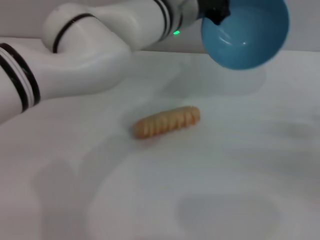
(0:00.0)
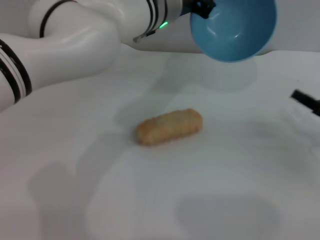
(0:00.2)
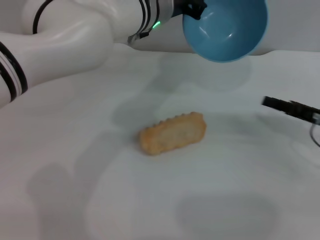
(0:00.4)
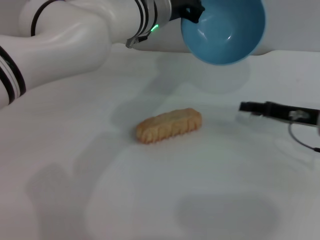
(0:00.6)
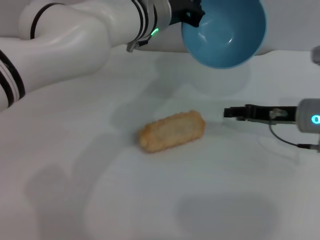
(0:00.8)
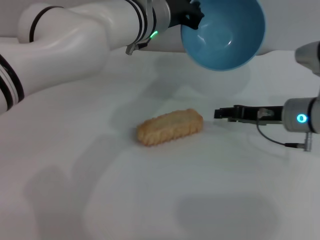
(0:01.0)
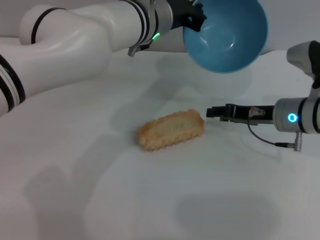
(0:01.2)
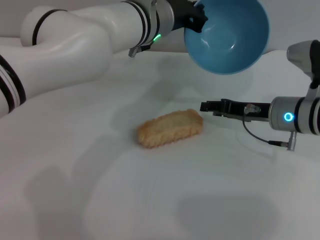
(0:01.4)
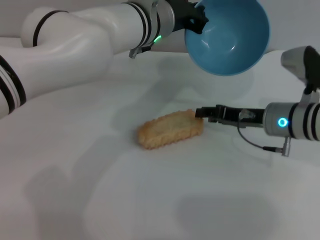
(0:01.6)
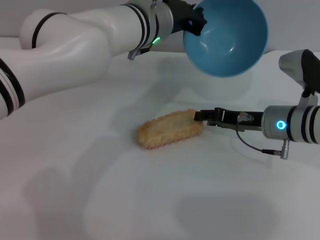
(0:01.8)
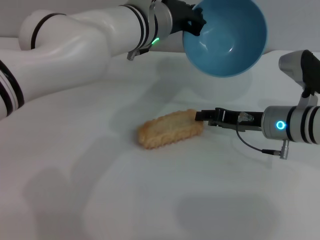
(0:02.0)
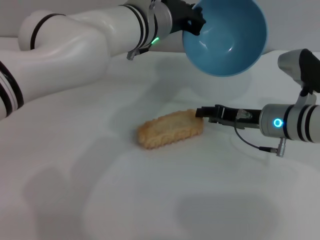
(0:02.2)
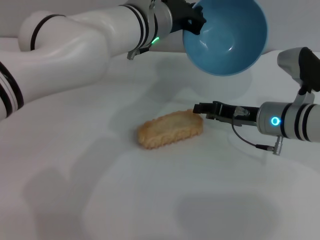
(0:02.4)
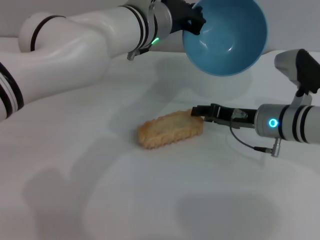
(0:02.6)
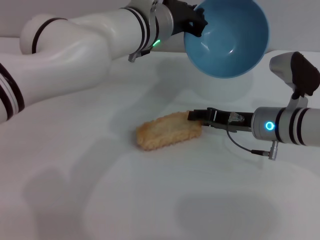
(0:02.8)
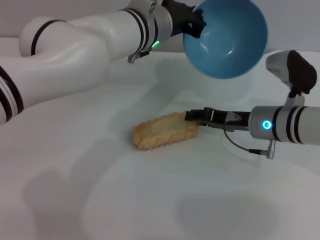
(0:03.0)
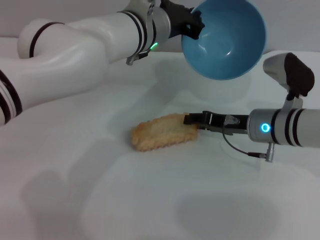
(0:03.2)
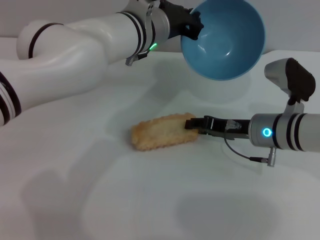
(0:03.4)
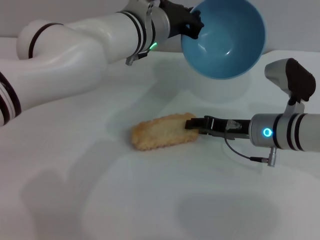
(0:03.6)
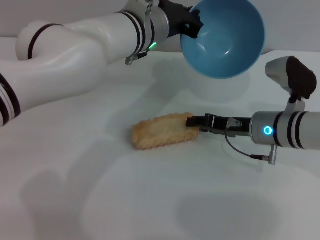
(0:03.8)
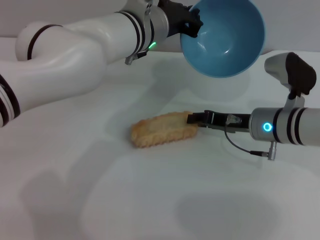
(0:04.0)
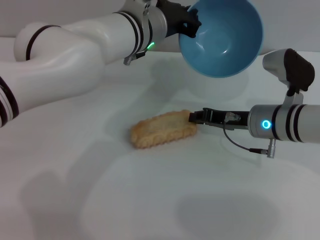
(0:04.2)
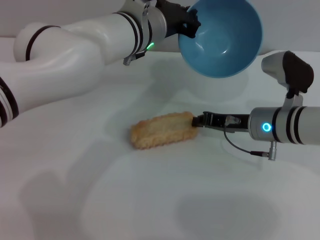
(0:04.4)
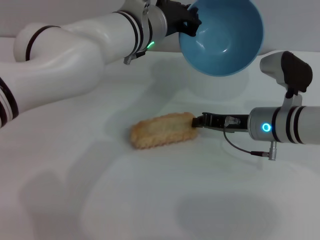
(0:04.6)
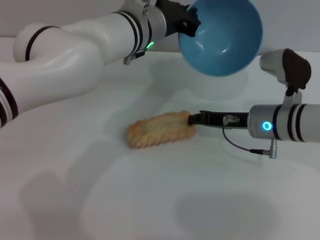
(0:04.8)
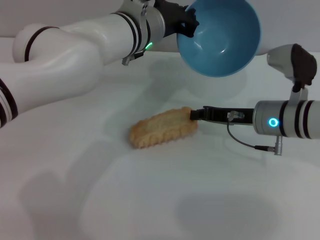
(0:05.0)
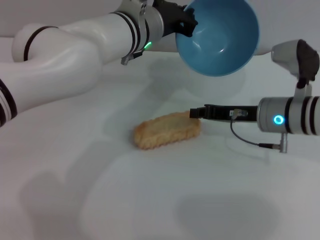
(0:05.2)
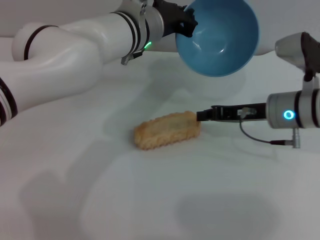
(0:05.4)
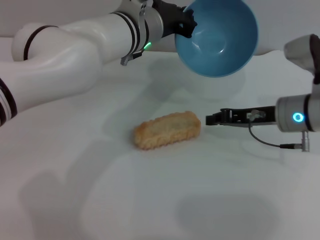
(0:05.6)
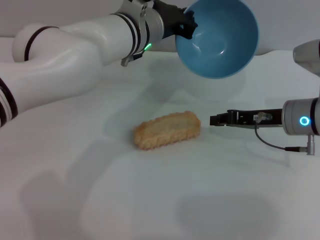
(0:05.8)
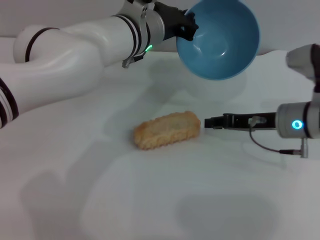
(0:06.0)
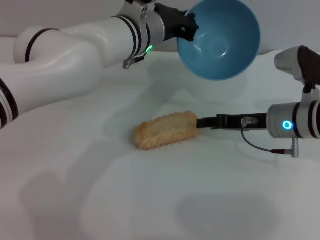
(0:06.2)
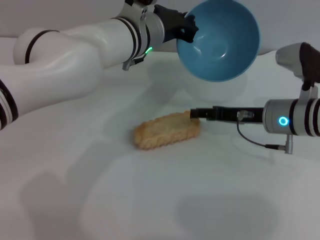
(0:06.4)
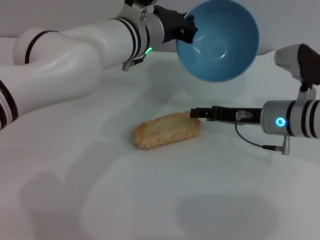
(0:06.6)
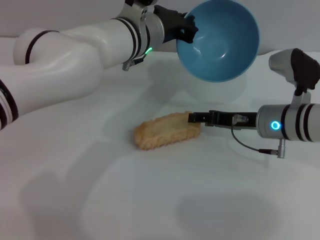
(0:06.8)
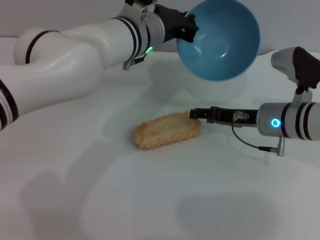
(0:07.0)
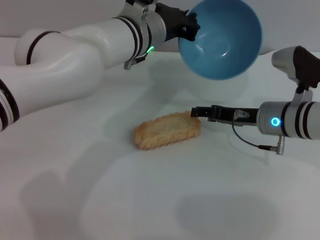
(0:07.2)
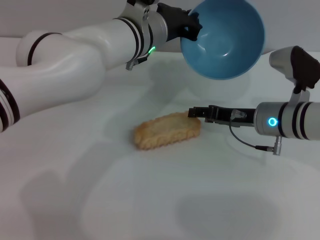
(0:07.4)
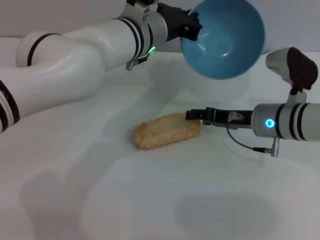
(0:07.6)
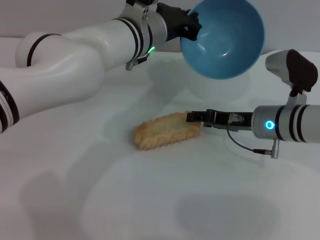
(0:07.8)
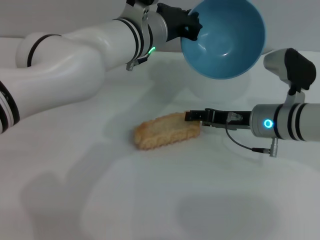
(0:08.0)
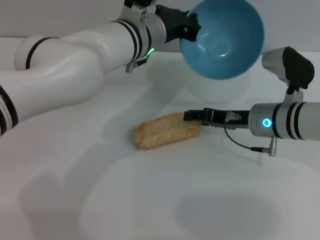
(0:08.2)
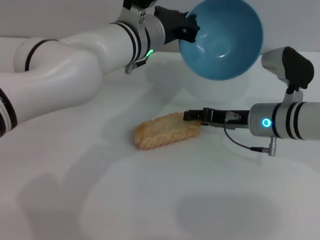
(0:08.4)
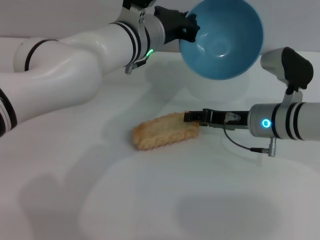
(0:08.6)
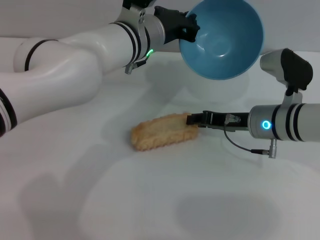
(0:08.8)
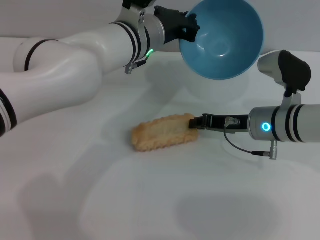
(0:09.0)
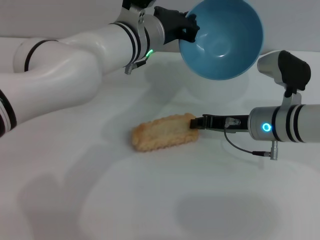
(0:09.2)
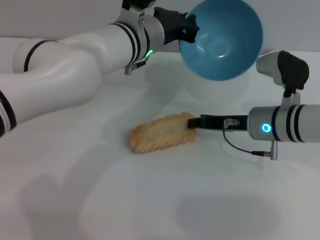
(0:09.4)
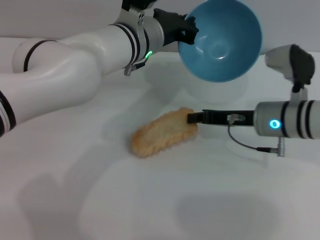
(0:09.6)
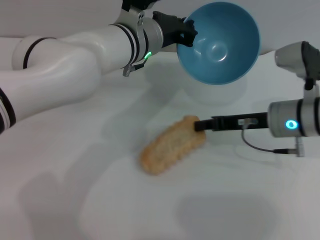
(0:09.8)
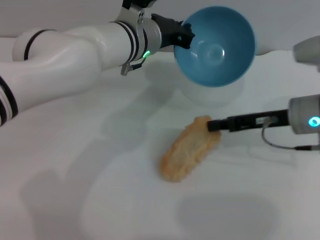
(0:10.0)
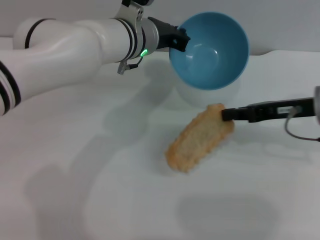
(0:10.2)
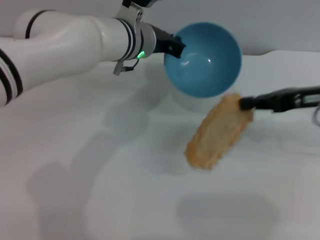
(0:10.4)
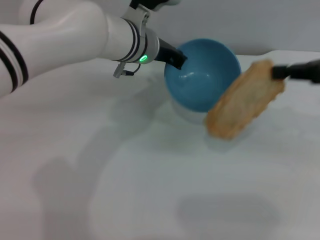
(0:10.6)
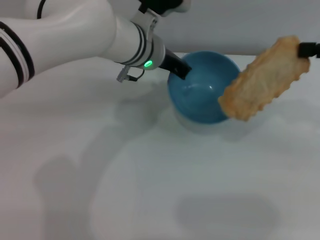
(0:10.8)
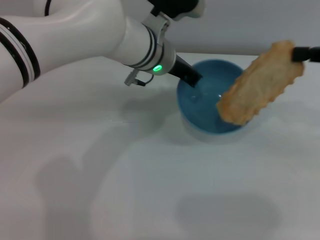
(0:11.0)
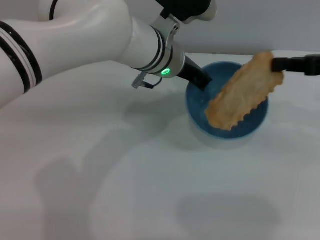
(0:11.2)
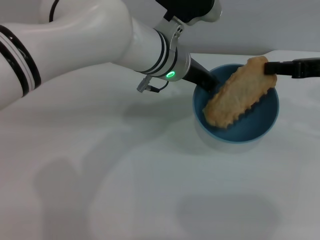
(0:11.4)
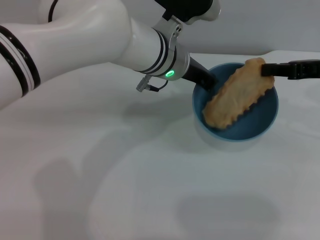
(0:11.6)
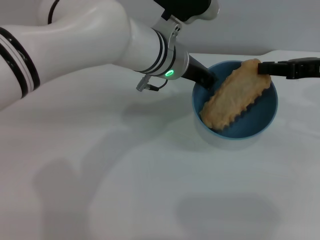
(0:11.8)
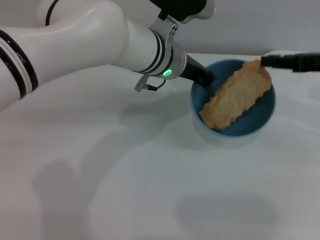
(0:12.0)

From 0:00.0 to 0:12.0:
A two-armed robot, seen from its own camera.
Task of the whole recording: put the bread into the blue bowl and pour it out repeatedly.
Step, from 0:00.0 to 0:10.4: Pick up the bread with the right gripper.
Step, from 0:10.6 to 0:12.0: Place the bread into the bowl.
From 0:00.0 to 0:01.6: The right gripper moves to the left and forward, some 20 cm.
From 0:01.6 to 0:03.0: The grippers move only a little.
From 0:03.0 to 0:04.4: The right gripper closes up.
From 0:04.4 to 0:06.0: The grippers make only small movements.
From 0:06.0 to 0:07.6: The right gripper opens up.
From 0:07.6 to 0:09.0: The right gripper closes up.
From 0:09.0 to 0:10.4: The right gripper is displaced upward and to the right by about 15 cm, and closes up.
From 0:10.4 to 0:12.0: The left gripper shifts by approximately 5 cm.

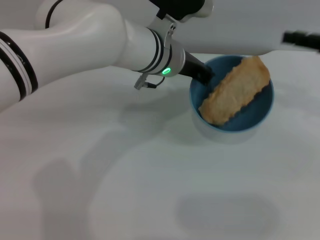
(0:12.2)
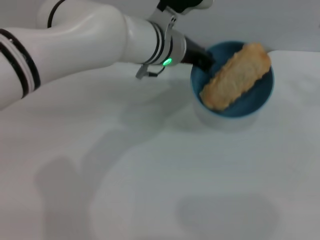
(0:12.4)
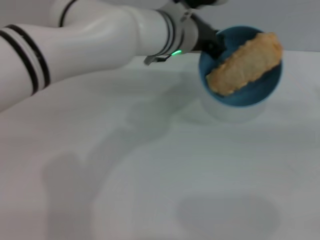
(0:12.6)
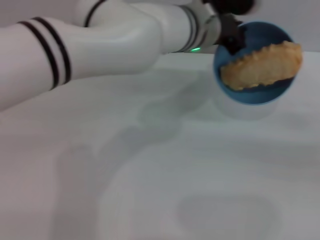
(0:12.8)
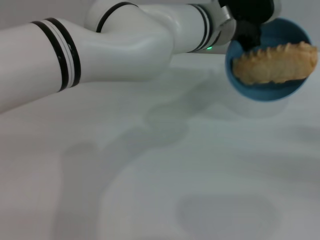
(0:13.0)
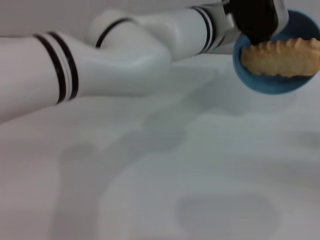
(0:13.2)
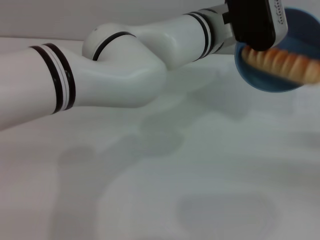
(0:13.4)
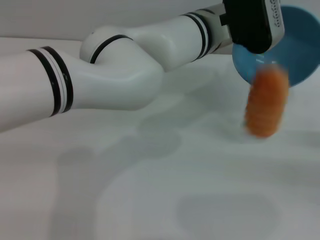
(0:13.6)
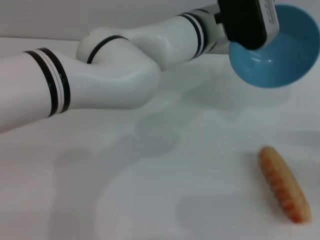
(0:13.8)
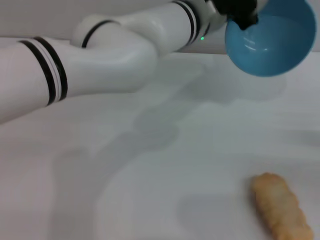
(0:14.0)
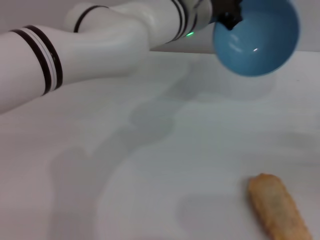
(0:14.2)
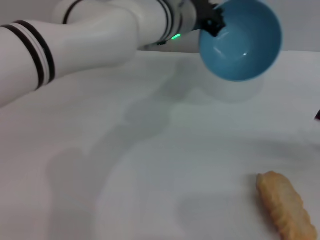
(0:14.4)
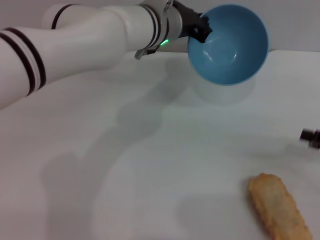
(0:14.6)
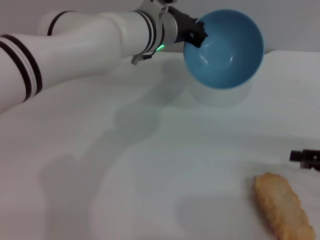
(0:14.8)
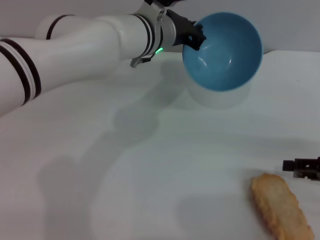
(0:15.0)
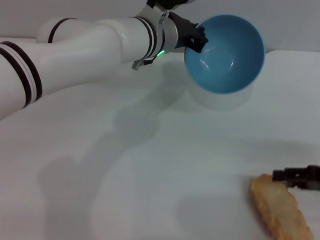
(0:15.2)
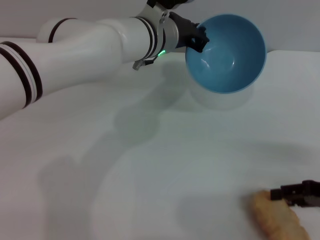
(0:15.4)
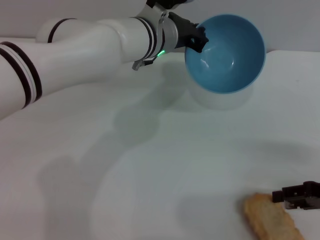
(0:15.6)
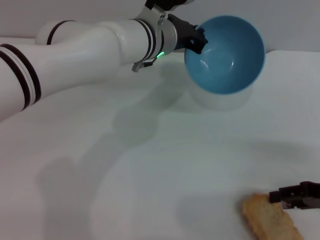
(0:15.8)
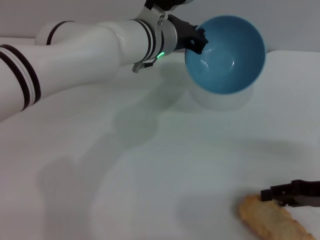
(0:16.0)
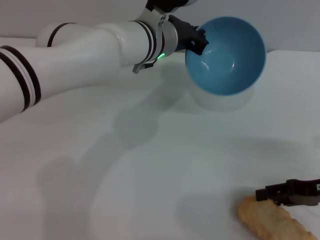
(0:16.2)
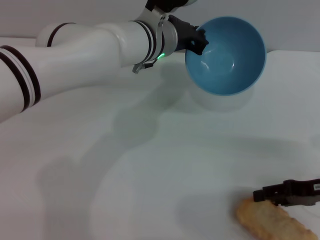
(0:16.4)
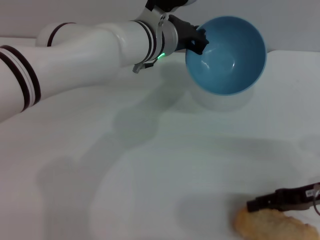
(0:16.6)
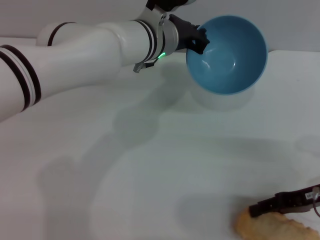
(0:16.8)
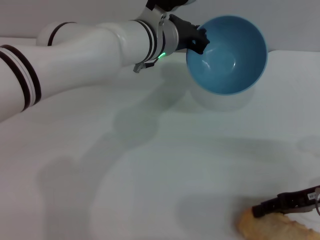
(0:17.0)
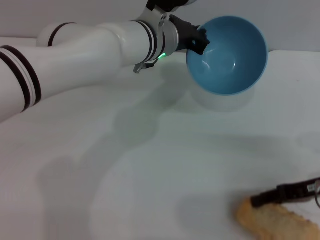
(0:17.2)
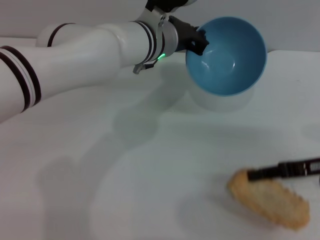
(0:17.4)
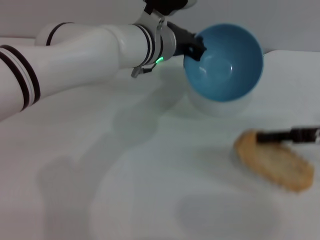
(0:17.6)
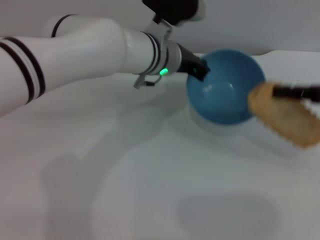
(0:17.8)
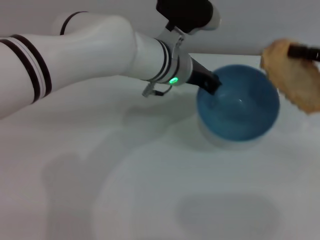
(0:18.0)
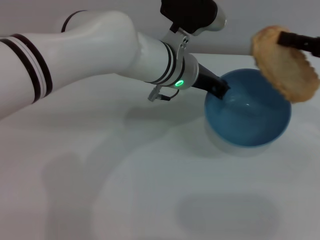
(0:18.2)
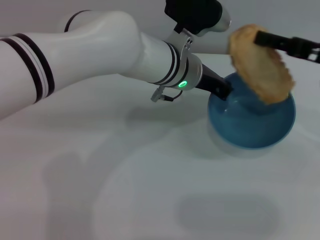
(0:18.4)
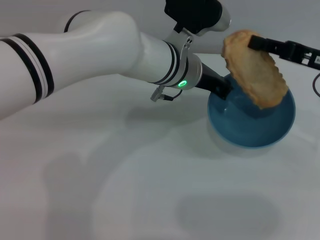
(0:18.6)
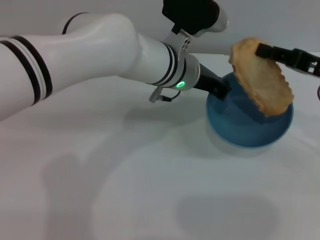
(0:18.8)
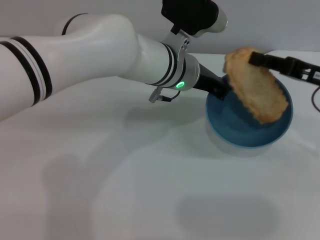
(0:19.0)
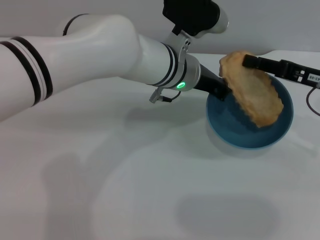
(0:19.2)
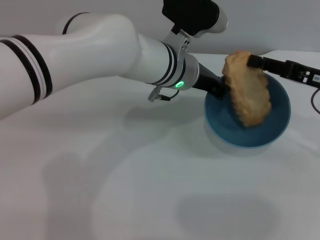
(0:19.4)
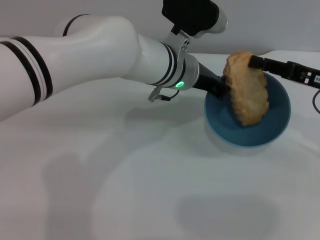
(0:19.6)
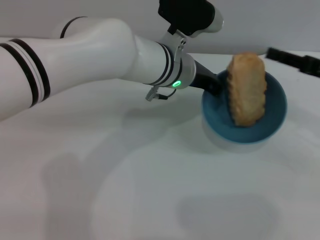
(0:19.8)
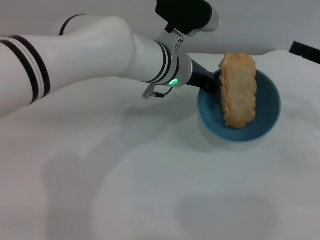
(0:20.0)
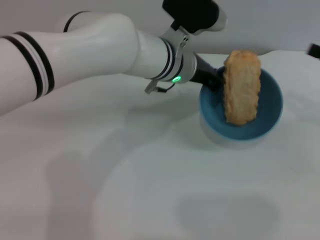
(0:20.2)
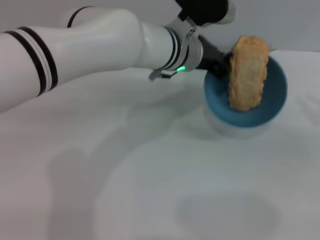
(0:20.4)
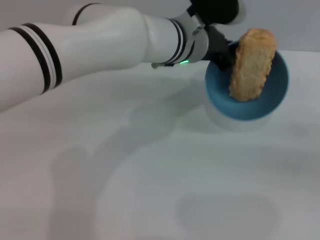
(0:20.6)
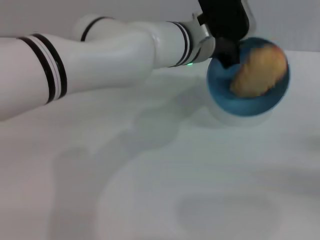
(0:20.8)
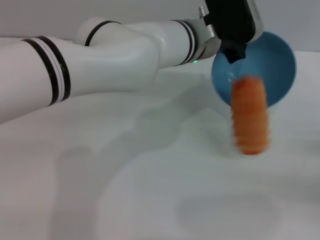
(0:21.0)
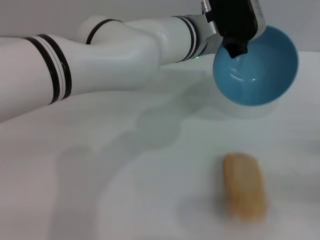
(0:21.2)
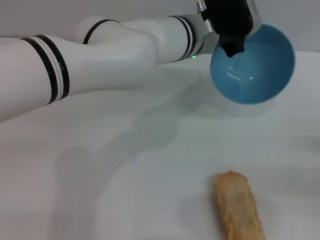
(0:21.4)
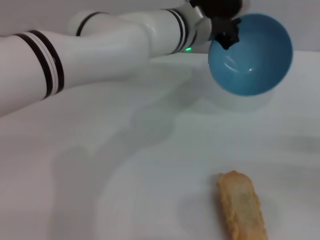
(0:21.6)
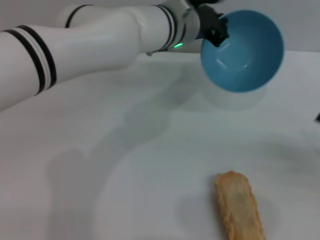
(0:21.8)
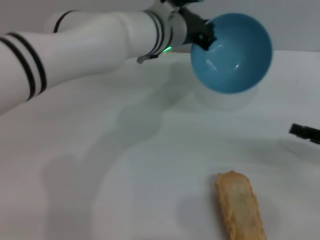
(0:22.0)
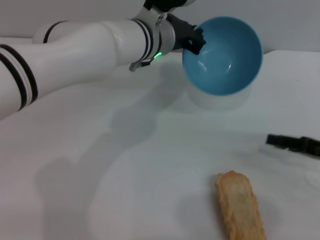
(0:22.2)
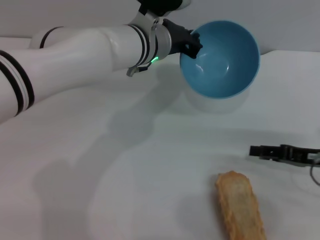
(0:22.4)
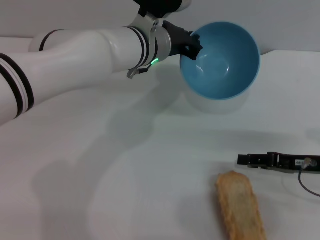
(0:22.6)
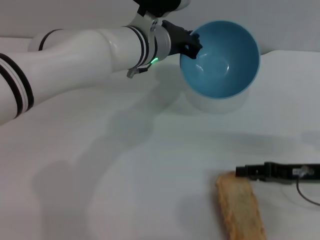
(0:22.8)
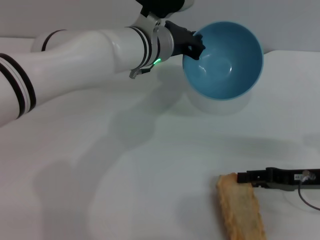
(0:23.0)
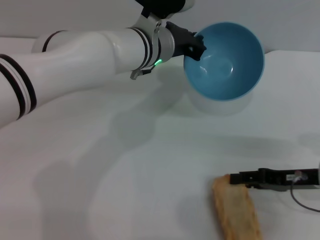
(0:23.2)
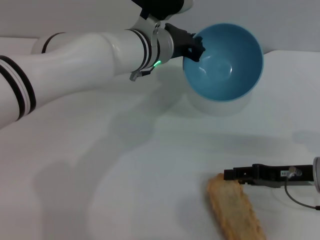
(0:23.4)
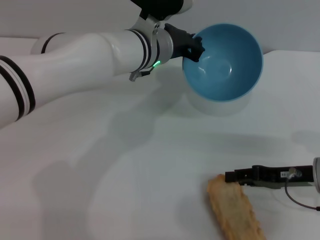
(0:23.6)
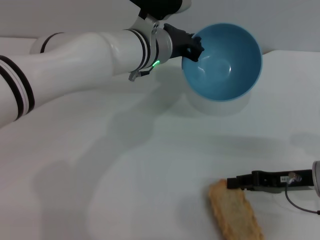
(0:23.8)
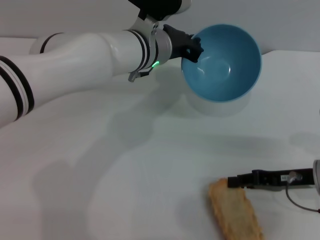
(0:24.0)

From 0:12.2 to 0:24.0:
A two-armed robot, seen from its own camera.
Task of the whole recording: put the bread into the blue bowl and pour it out repeatedly.
Step, from 0:12.2 to 0:13.8: Pour the bread out of the bowl.
Step, from 0:14.0 to 0:17.6: Pick up the bread with the right gripper.
Step, from 0:17.8 to 0:19.8: Place the bread into the bowl.
Step, from 0:20.0 to 0:21.8: Pour the bread out of the bowl.
From 0:12.2 to 0:13.6: The right gripper shifts approximately 20 cm downward, backward and to the right, and opens up; the left gripper is displaced to the right by about 5 cm.
From 0:13.6 to 0:15.2: Both grippers travel together to the left, roughly 5 cm.
From 0:15.2 to 0:16.6: The right gripper shifts approximately 5 cm to the left.
From 0:16.6 to 0:18.2: The right gripper goes approximately 15 cm upward and forward, and closes its fingers.
From 0:18.2 to 0:19.6: The right gripper changes place by approximately 5 cm, and opens.
From 0:19.6 to 0:21.0: The right gripper is displaced backward, to the right and downward by approximately 20 cm.
From 0:21.0 to 0:22.6: The right gripper shifts roughly 15 cm to the left and forward. The left gripper is displaced to the left by approximately 5 cm.
From 0:22.6 to 0:24.0: The right gripper closes its fingers.
